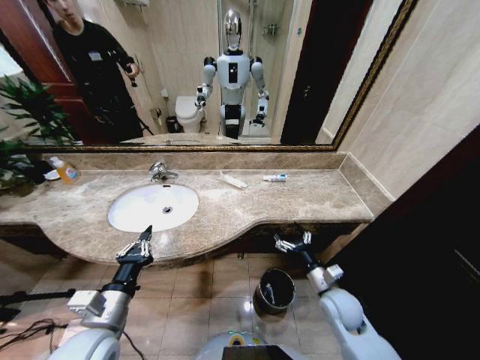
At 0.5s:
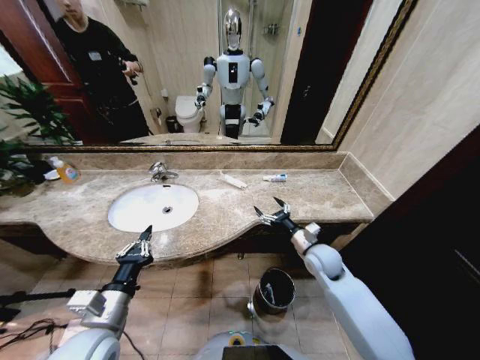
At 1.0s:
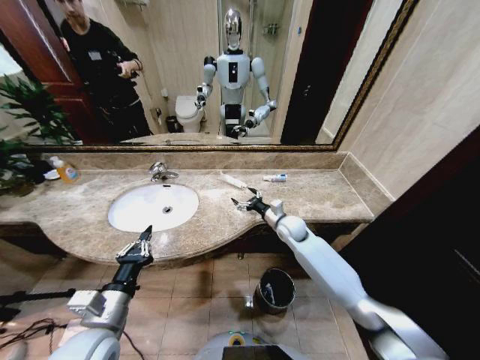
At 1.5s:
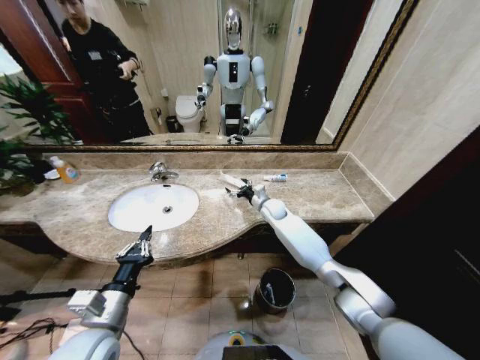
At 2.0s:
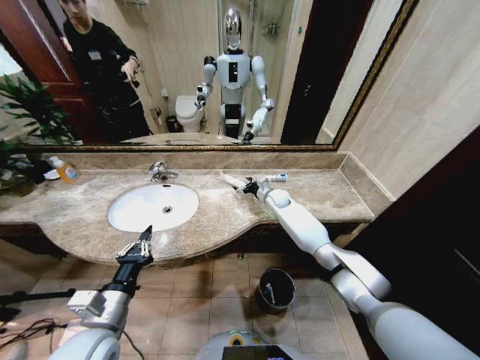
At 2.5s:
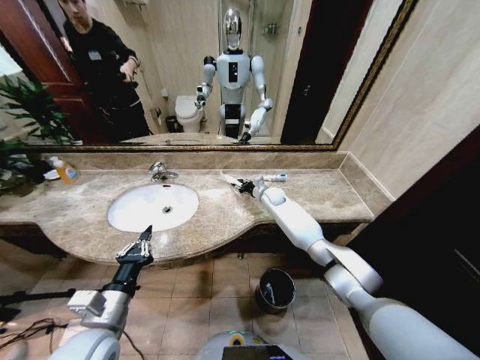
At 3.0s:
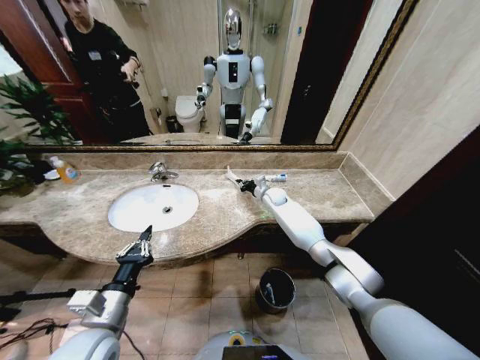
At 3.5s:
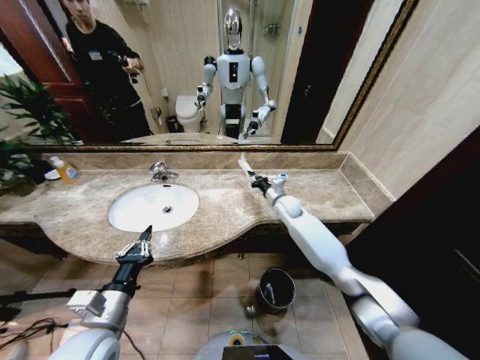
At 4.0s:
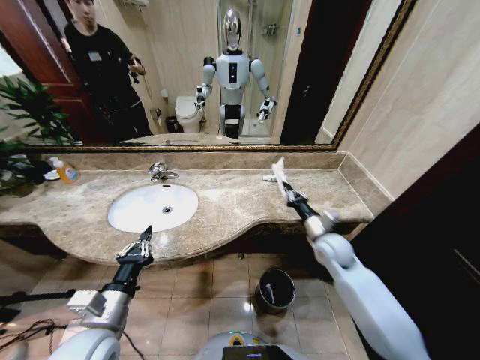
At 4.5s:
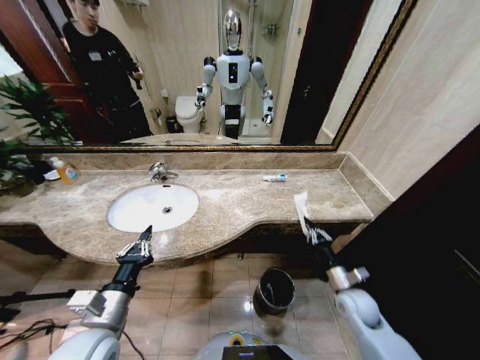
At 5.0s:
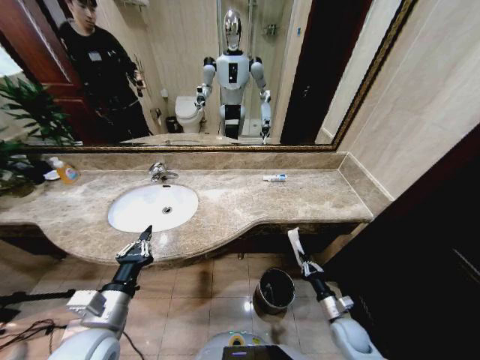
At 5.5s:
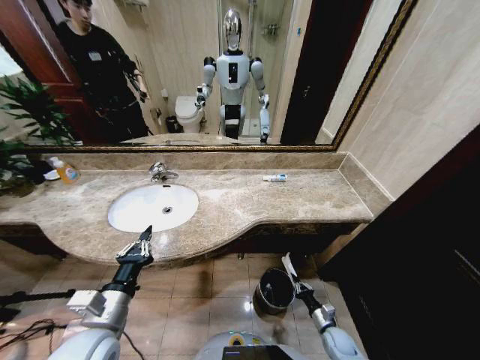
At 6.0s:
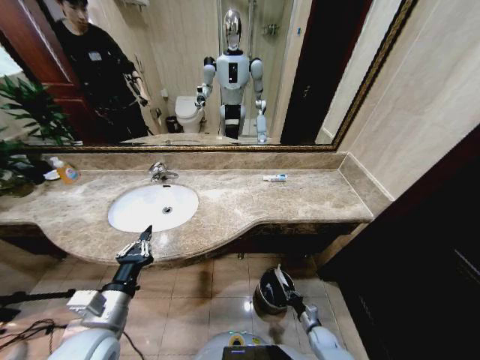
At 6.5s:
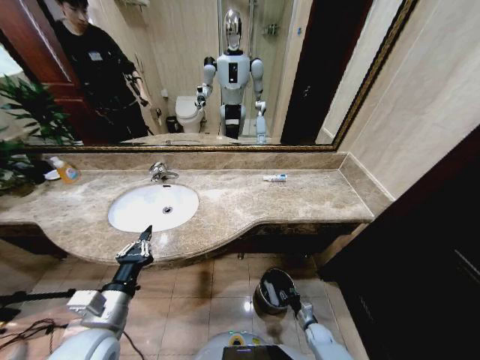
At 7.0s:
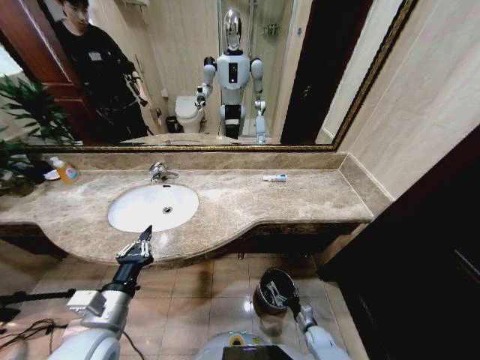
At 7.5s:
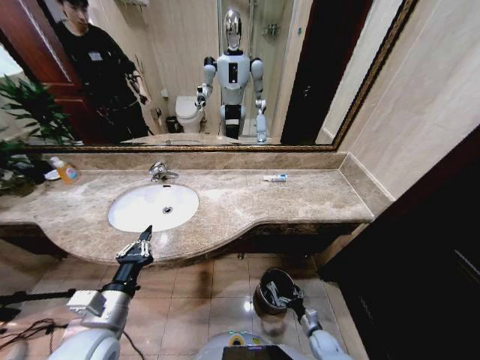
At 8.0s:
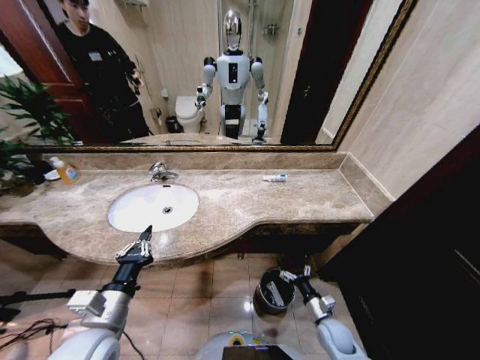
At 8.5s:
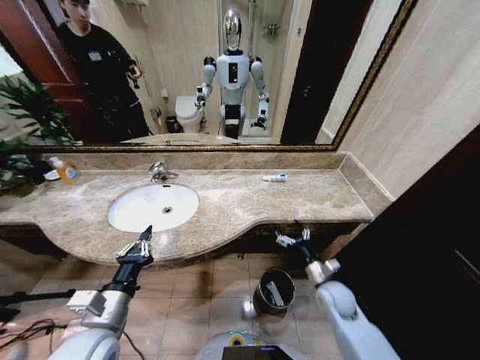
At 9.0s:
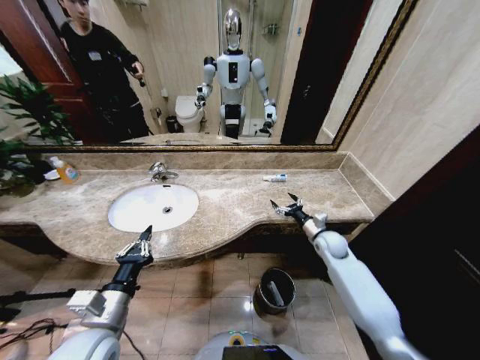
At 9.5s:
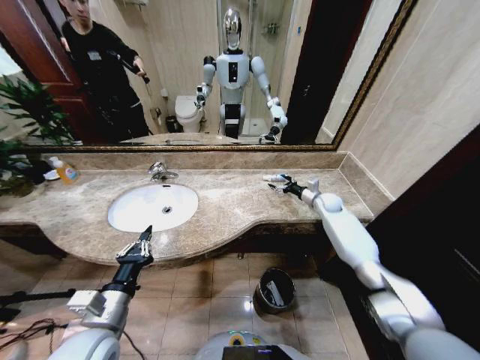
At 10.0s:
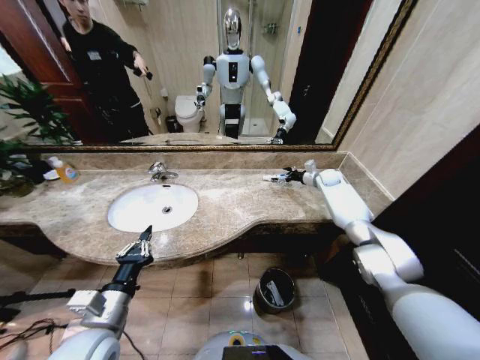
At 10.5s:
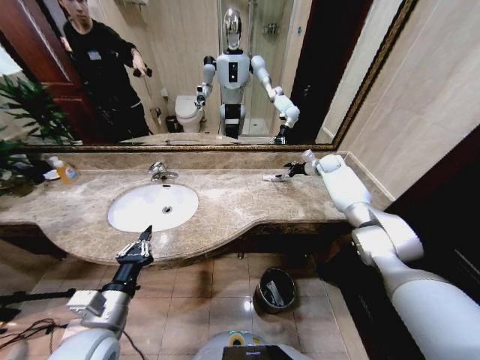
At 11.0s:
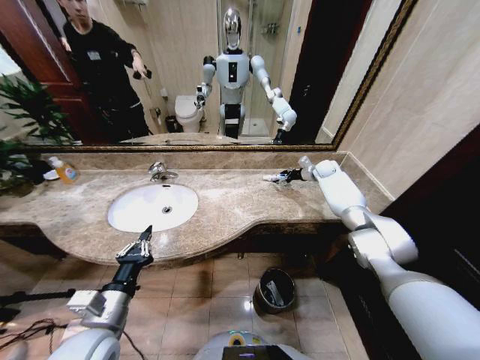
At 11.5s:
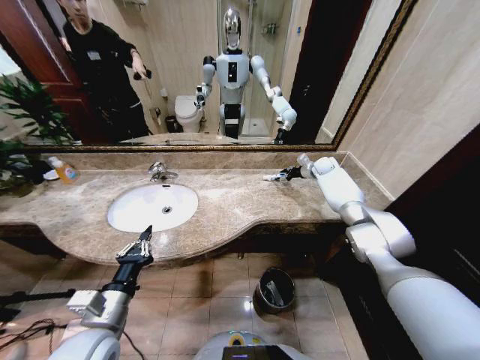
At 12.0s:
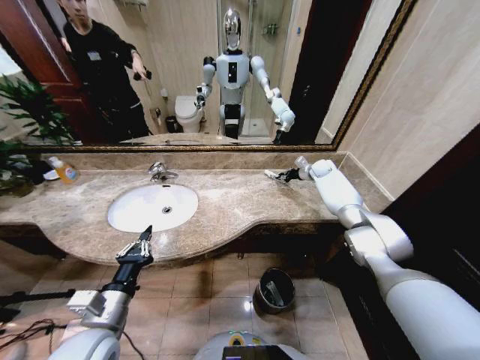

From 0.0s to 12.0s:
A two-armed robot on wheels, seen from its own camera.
Task of the whole recording: Pick up the trash from the sink and place it in the trash bin.
From 0.0s to 2.0s: The right gripper is displaced forward by some 35 cm.
From 2.0s to 4.0s: The right gripper goes roughly 25 cm backward and to the right, and closes.
From 4.0s to 6.0s: The right gripper travels downward and backward by some 40 cm.
From 6.0s to 8.0s: The right gripper is displaced upward by roughly 15 cm, and opens up.
From 8.0s to 10.0s: The right gripper travels forward and upward by about 50 cm.
From 10.0s to 12.0s: The right gripper closes up.

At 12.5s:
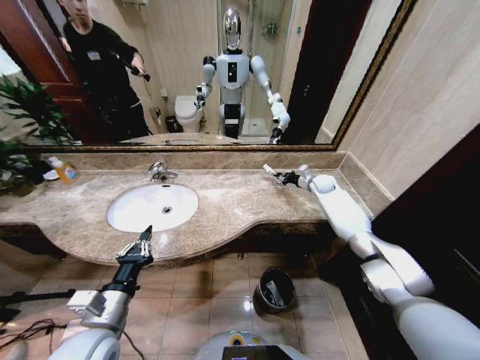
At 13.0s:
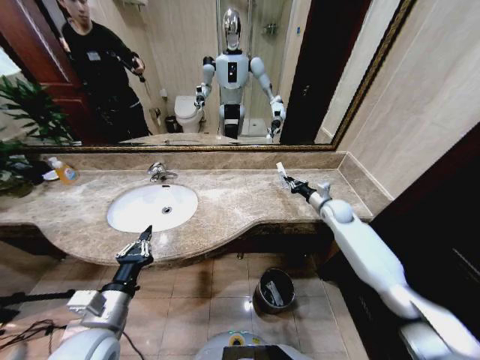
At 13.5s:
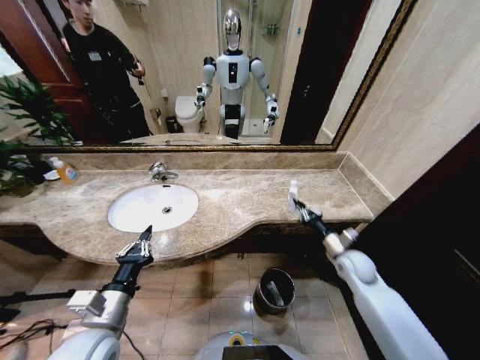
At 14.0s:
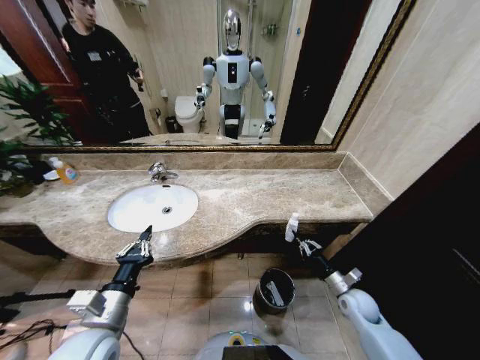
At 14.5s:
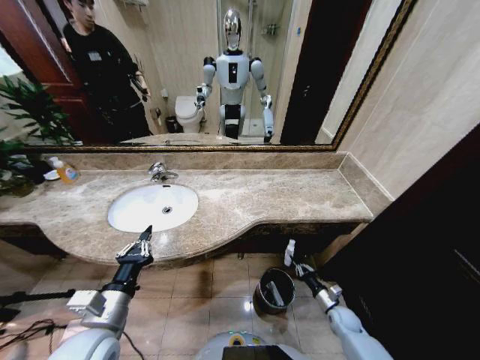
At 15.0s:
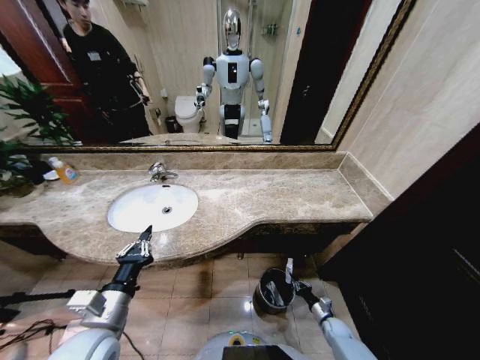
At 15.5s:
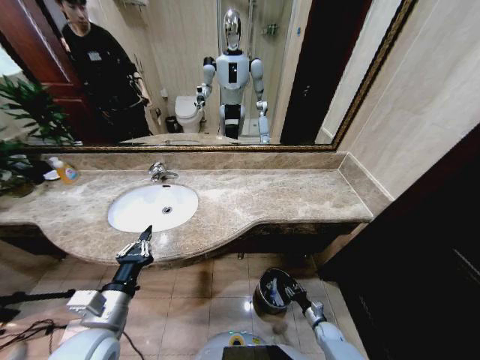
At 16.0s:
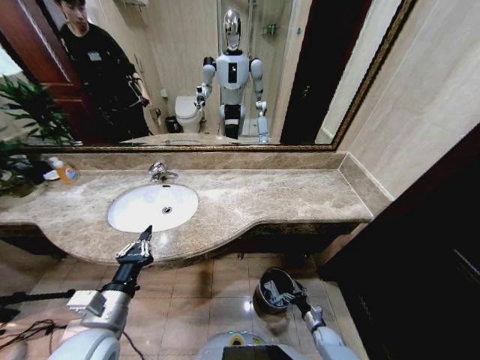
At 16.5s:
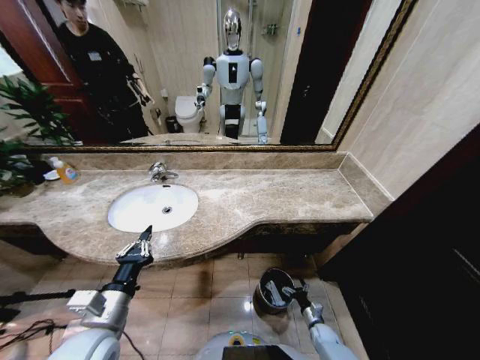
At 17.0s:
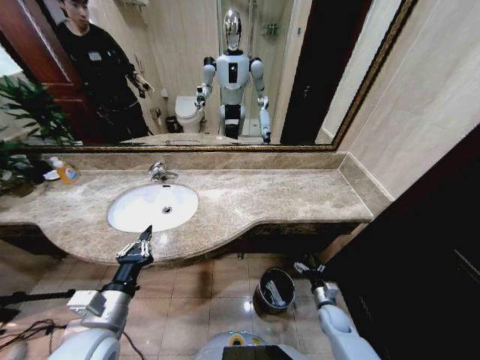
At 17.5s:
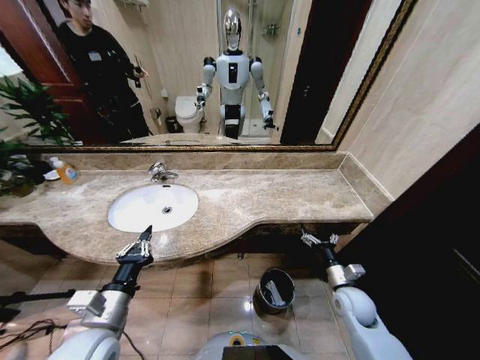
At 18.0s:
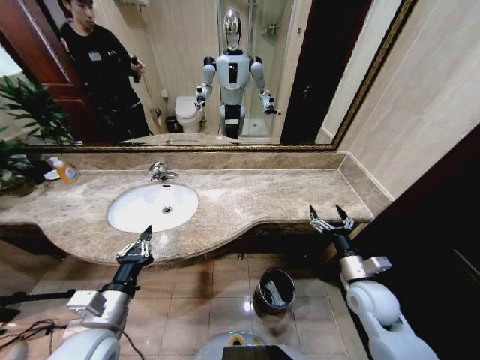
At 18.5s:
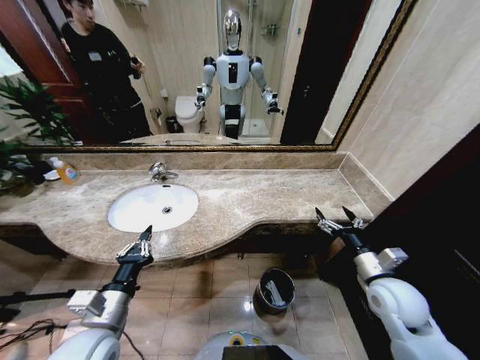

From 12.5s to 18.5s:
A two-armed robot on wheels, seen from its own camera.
Task of the whole recording: Pick up the trash from the sink and place it in the trash bin.
From 12.5s to 14.5s: The right gripper shifts about 50 cm backward and downward.
From 14.5s to 16.5s: The right gripper is displaced downward by some 10 cm, and opens.
From 16.5s to 18.5s: The right gripper travels upward by approximately 40 cm.

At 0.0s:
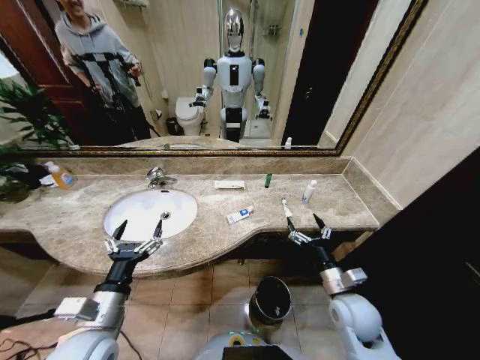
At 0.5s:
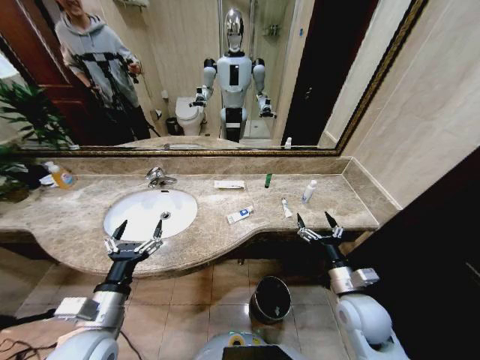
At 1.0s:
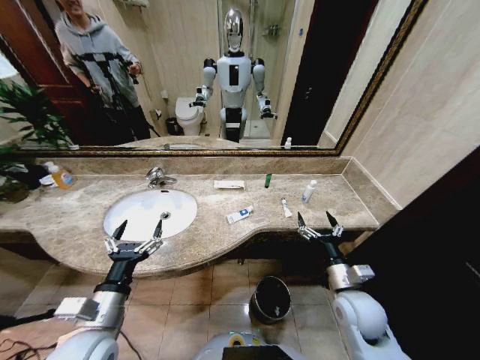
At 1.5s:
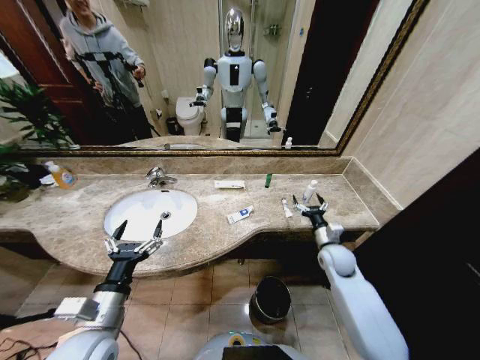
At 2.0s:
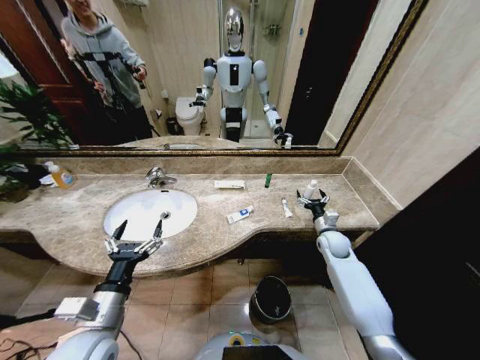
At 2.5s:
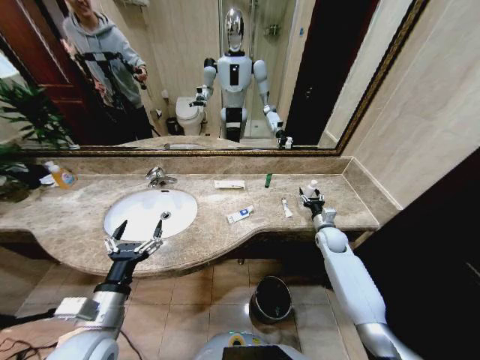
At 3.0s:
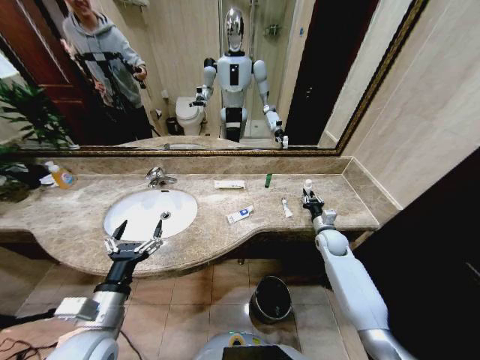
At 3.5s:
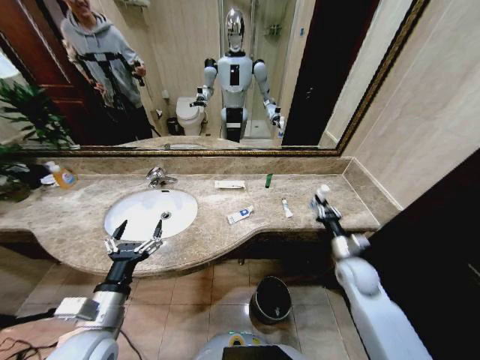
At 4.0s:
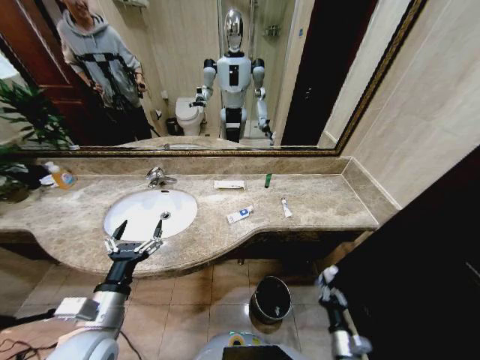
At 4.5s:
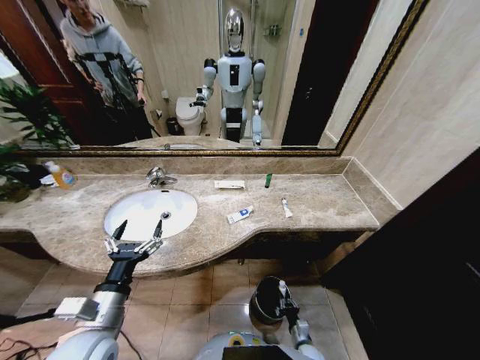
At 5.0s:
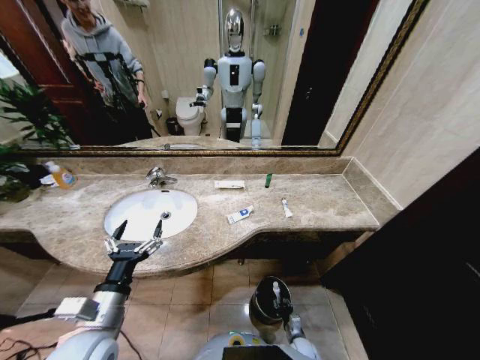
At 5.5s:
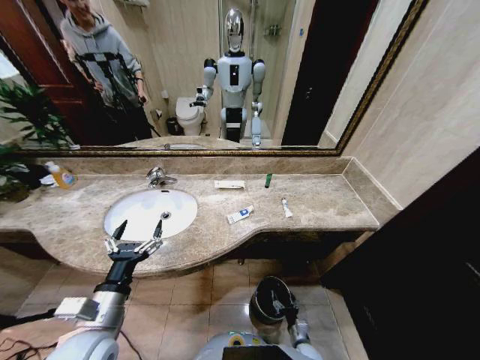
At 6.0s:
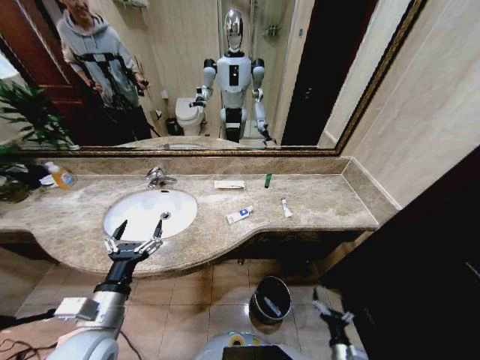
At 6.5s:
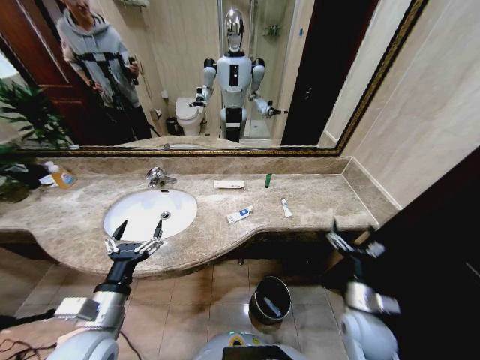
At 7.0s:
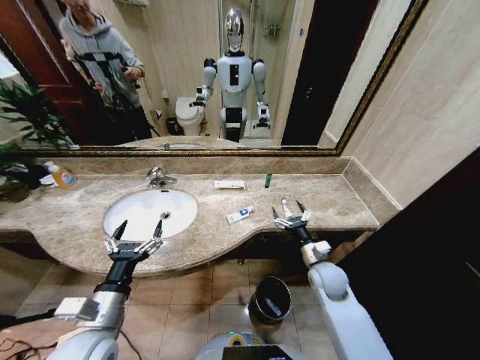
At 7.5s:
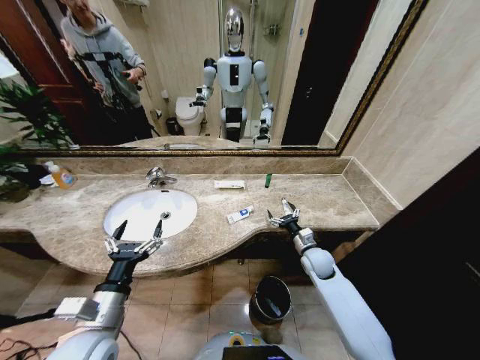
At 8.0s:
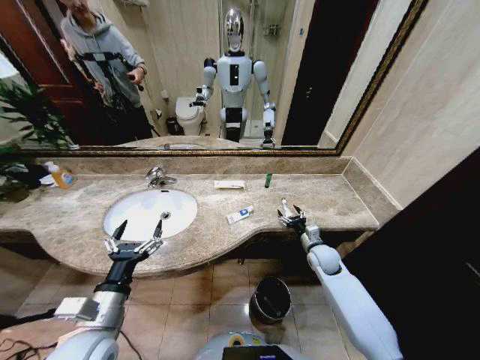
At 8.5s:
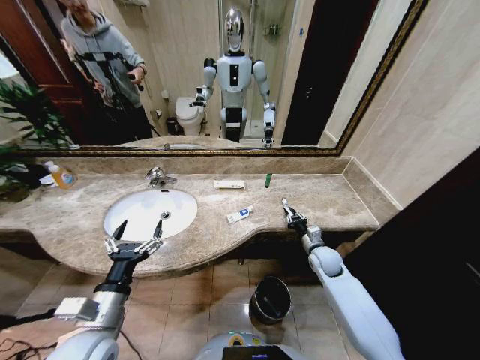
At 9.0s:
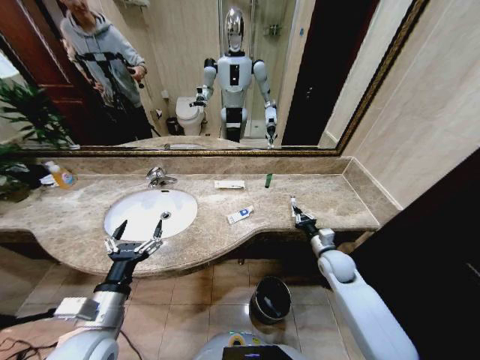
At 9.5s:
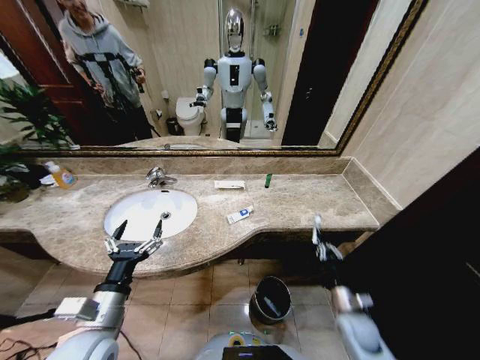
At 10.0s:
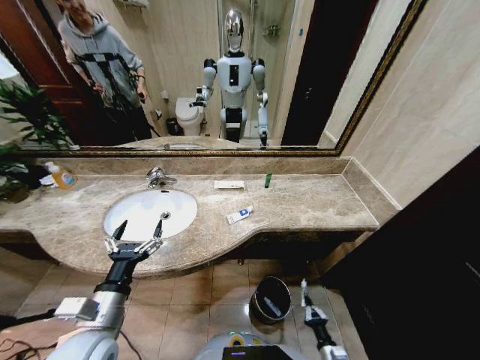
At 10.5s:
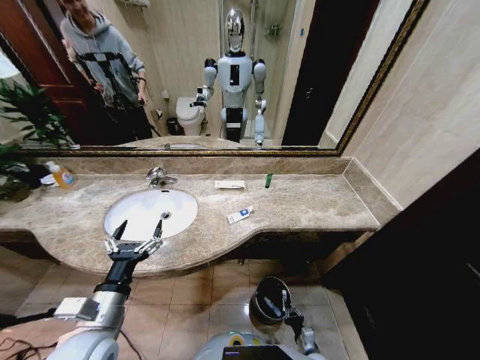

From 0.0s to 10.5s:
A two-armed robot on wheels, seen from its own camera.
Task of the whole recording: Pick up the trash from the sink and place it in the trash bin.
From 2.0s to 4.0s: The right gripper travels backward and downward by about 35 cm, and closes.
From 4.0s to 6.5s: The right gripper shifts approximately 20 cm upward and forward, and opens up.
From 6.5s to 8.5s: The right gripper travels forward by about 20 cm, and closes.
From 8.5s to 10.5s: The right gripper moves downward and backward, about 40 cm.
